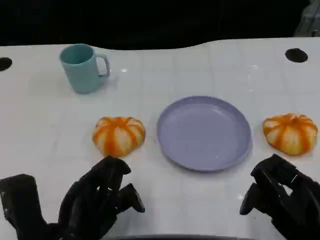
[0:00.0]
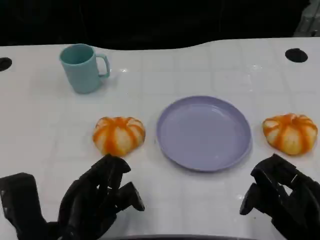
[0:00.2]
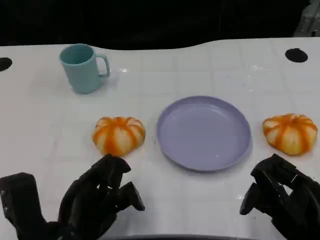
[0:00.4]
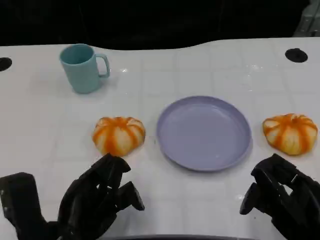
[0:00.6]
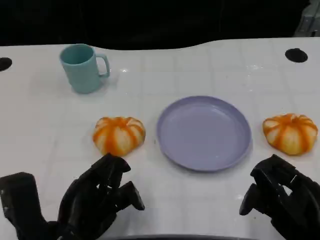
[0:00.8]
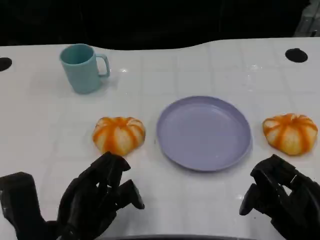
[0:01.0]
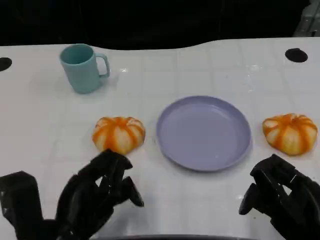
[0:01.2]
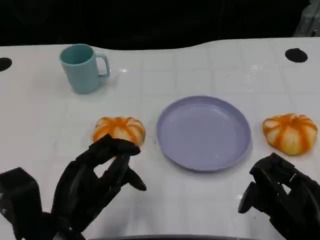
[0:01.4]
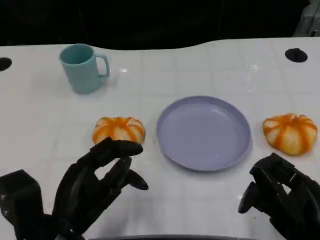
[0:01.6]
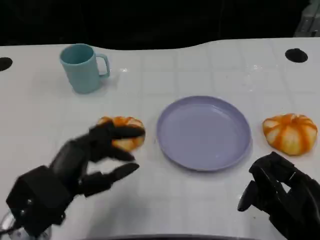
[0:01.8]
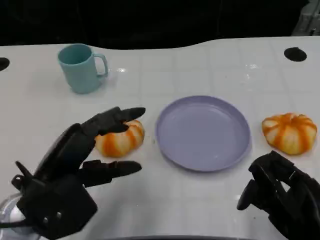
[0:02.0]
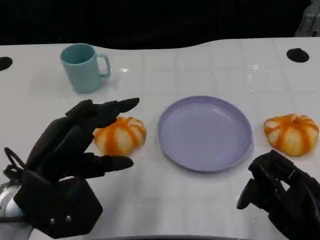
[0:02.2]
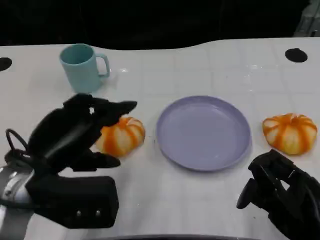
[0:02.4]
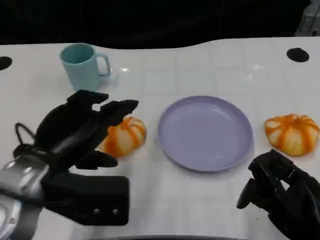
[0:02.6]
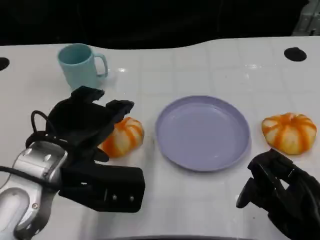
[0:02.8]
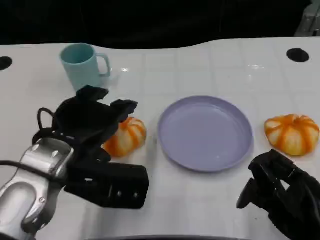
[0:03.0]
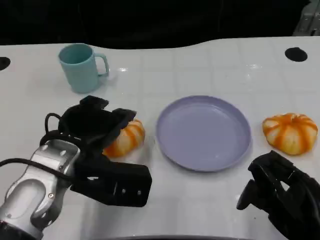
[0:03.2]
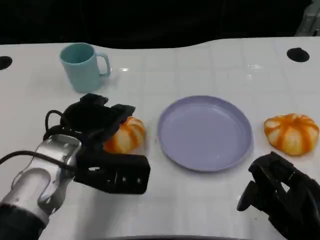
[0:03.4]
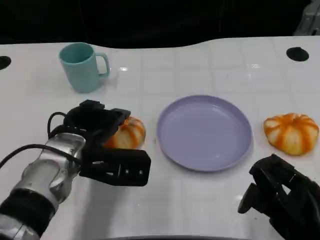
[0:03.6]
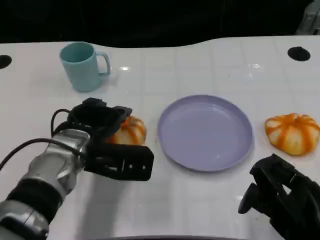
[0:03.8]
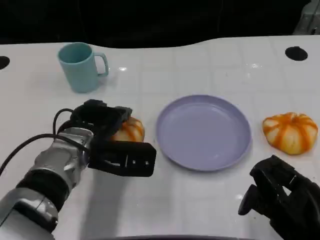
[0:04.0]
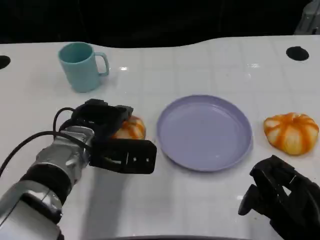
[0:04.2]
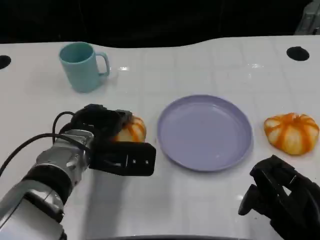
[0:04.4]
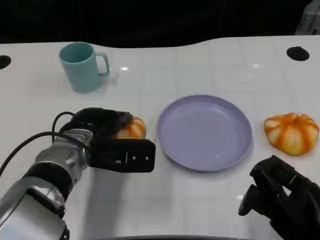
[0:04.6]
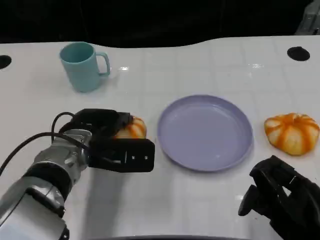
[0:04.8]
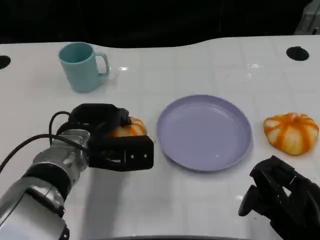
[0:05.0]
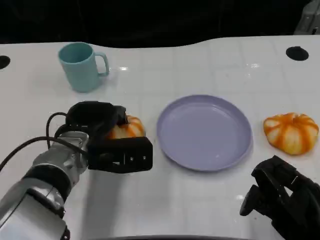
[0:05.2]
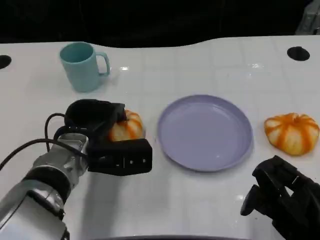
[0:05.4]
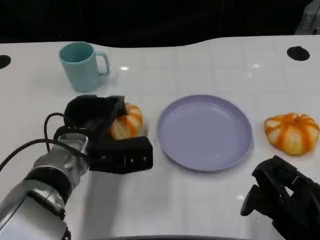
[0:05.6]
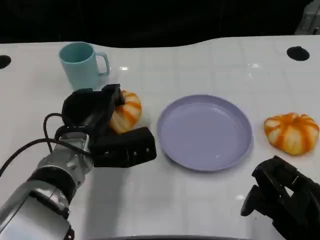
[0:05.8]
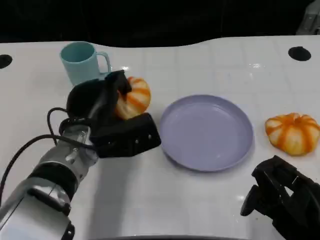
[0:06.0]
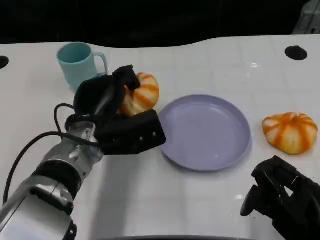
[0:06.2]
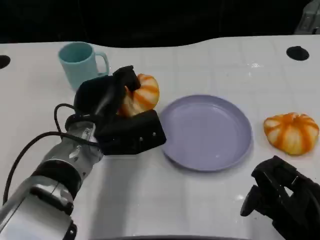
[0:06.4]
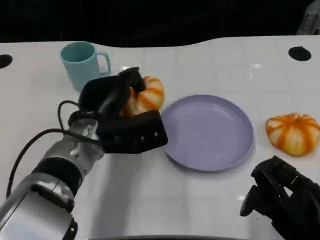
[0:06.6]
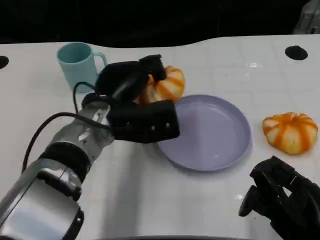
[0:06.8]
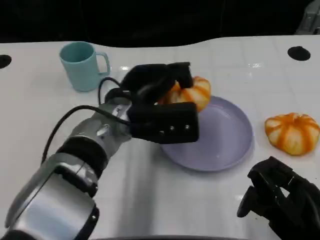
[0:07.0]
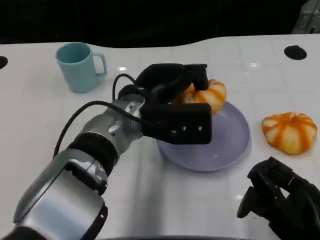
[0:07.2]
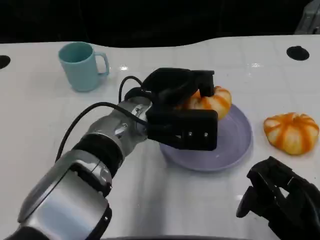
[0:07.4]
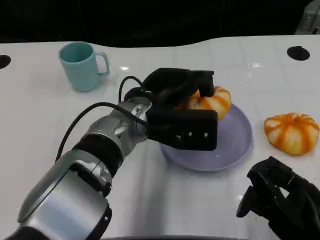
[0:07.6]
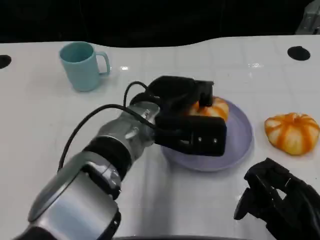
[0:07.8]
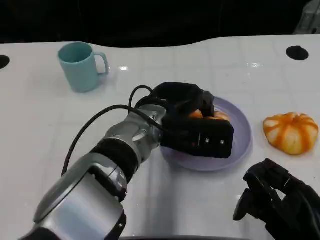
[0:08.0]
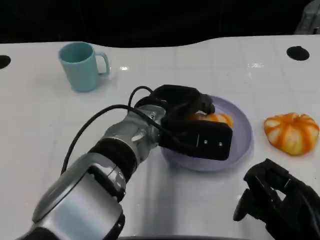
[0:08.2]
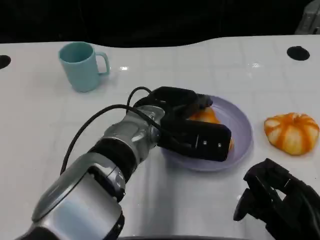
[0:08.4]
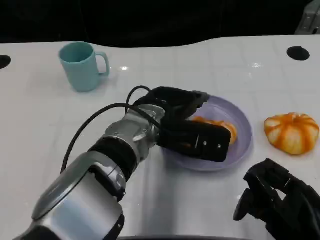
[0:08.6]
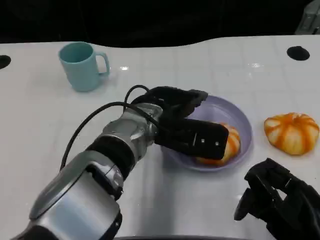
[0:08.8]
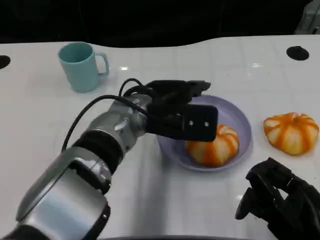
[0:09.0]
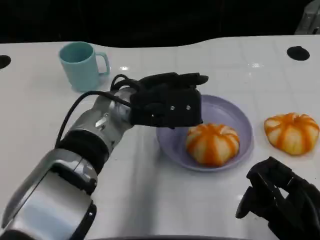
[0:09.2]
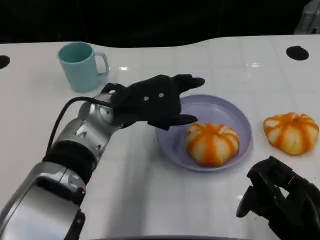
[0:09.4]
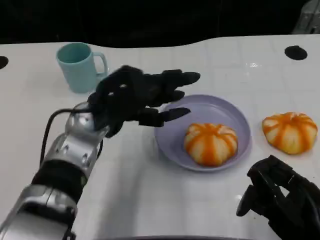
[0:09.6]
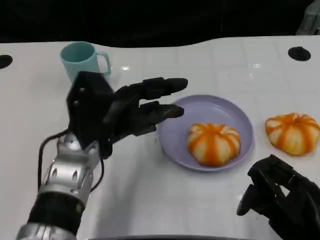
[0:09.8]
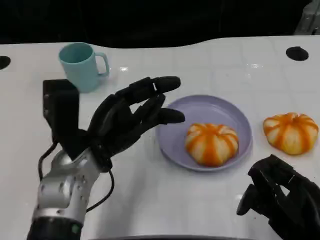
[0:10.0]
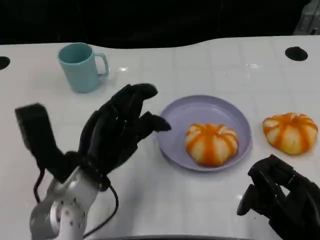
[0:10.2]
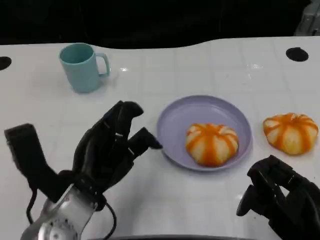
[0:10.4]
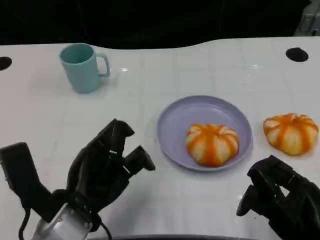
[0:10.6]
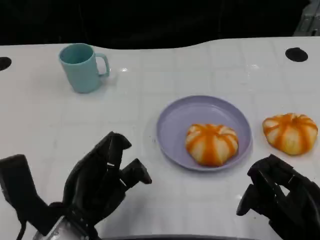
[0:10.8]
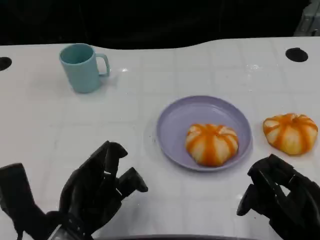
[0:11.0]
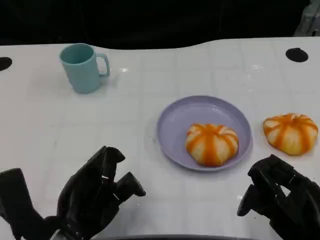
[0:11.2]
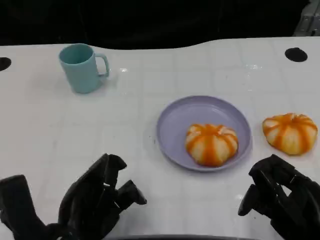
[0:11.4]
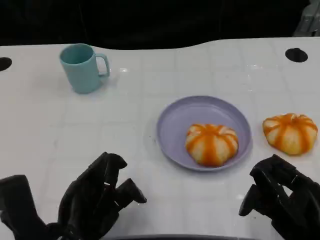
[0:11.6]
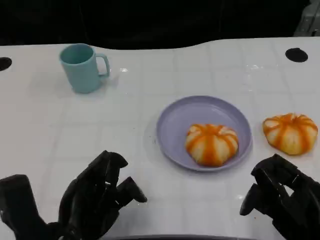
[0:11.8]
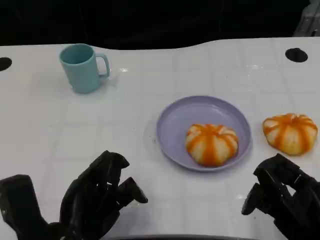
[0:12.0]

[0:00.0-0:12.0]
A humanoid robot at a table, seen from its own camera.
Task of the whole recording: Grasp the bread from the table and place it into the plate.
0.0 to 1.6 s: The hands move only a little.
1.6 to 3.0 s: The left hand is displaced forward and upward by roughly 10 cm.
3.0 to 4.4 s: The left hand moves downward and forward, some 10 cm.
6.0 to 7.6 s: The left hand moves to the right, about 10 cm.
9.0 to 10.4 s: The left hand heads backward and to the left, covering about 15 cm.
10.4 to 12.0 s: The left hand ends up approximately 5 cm from where it was.

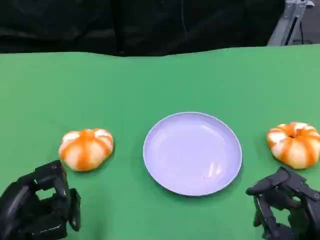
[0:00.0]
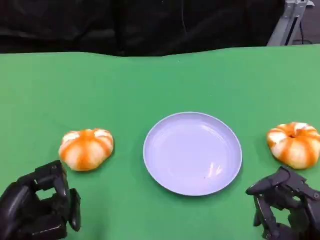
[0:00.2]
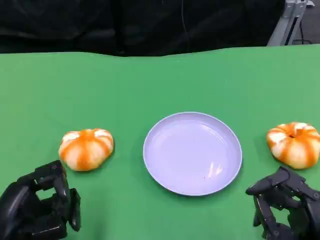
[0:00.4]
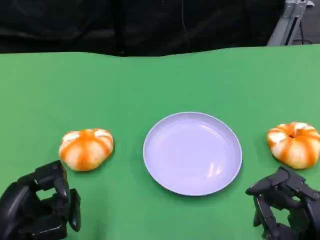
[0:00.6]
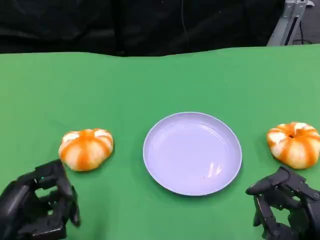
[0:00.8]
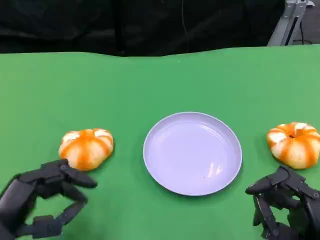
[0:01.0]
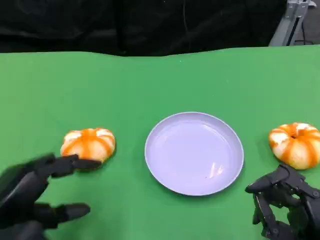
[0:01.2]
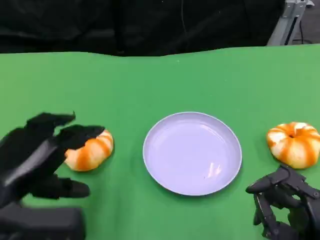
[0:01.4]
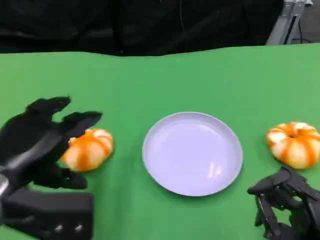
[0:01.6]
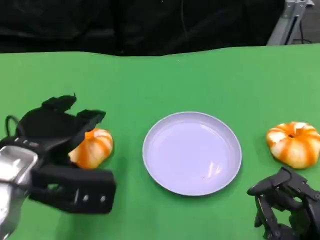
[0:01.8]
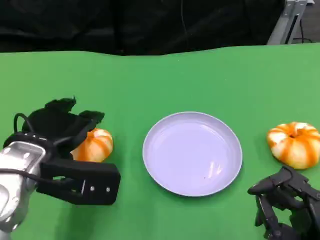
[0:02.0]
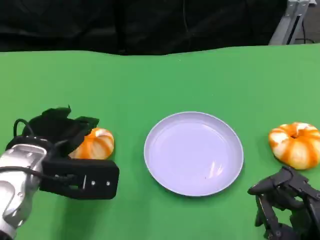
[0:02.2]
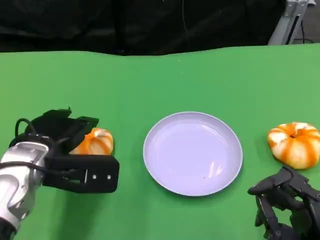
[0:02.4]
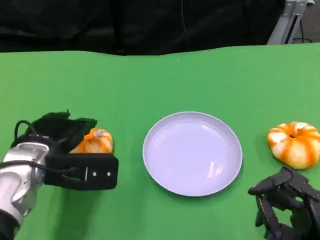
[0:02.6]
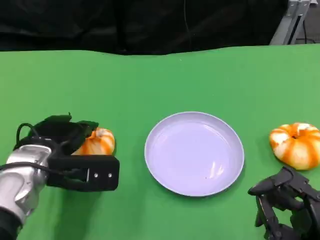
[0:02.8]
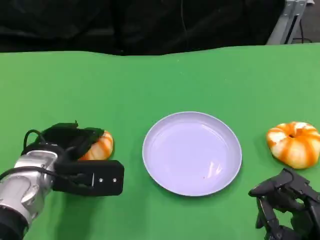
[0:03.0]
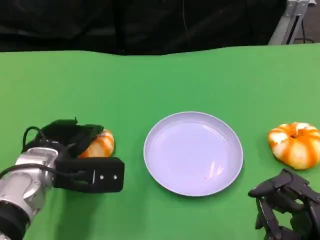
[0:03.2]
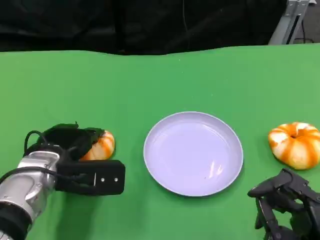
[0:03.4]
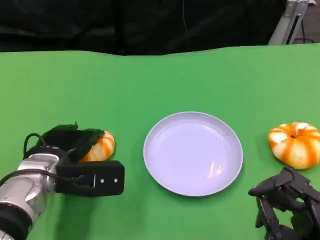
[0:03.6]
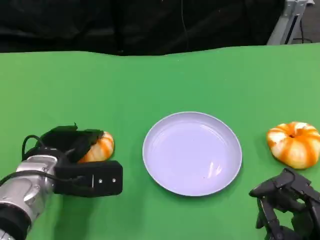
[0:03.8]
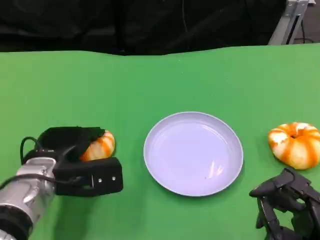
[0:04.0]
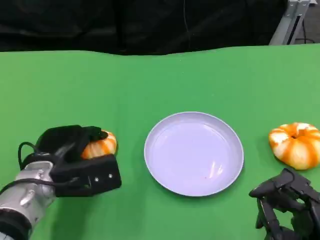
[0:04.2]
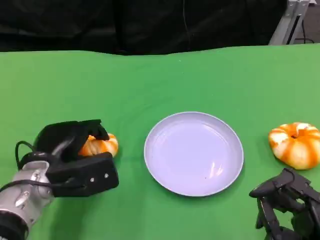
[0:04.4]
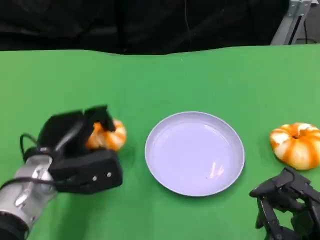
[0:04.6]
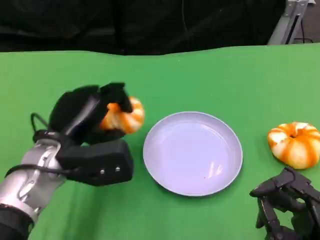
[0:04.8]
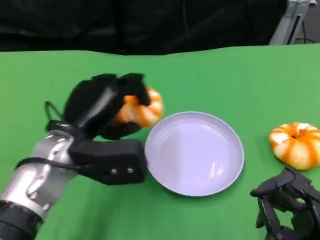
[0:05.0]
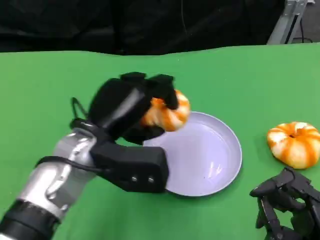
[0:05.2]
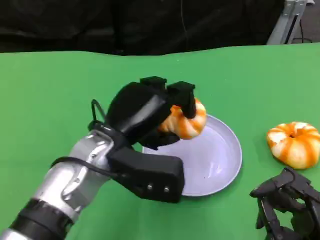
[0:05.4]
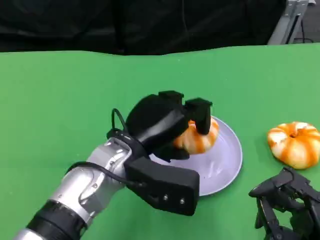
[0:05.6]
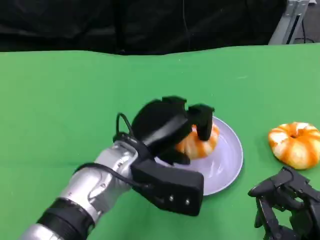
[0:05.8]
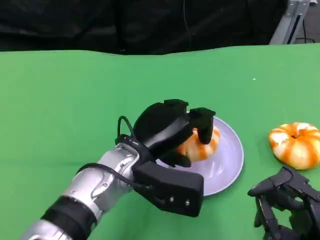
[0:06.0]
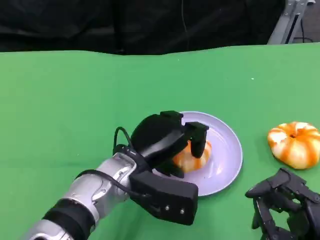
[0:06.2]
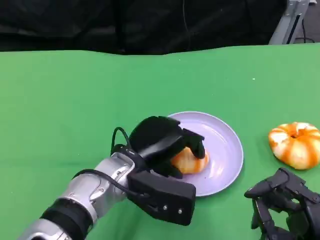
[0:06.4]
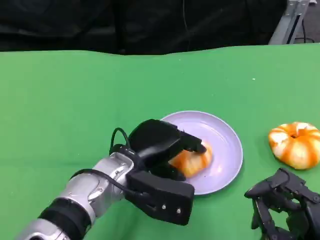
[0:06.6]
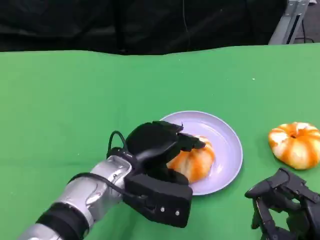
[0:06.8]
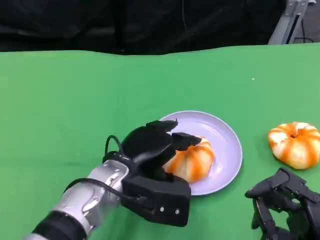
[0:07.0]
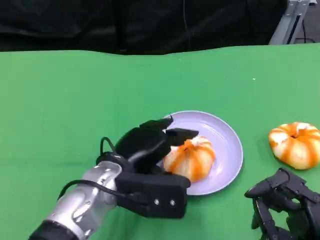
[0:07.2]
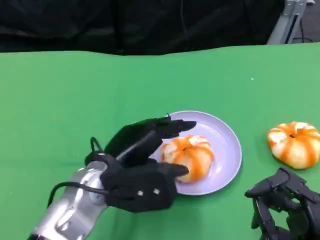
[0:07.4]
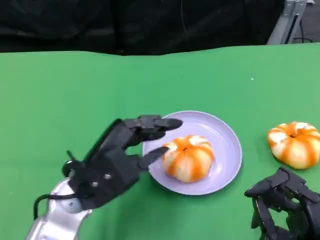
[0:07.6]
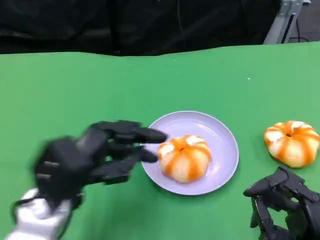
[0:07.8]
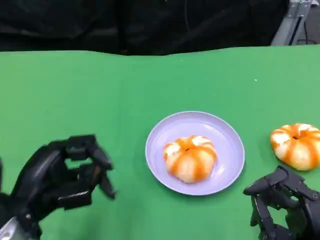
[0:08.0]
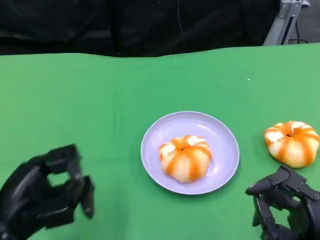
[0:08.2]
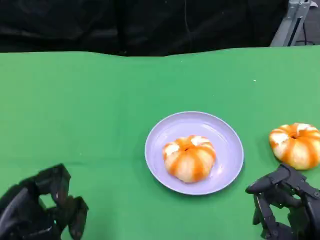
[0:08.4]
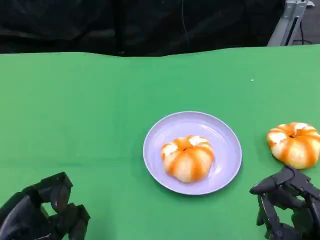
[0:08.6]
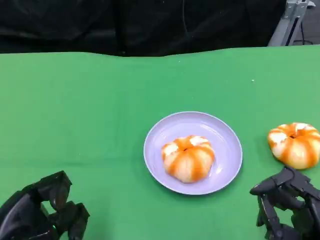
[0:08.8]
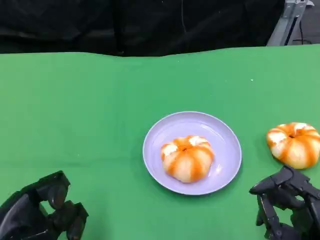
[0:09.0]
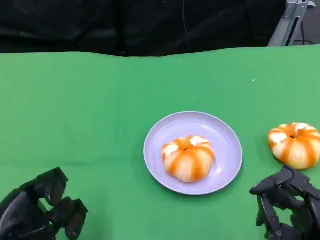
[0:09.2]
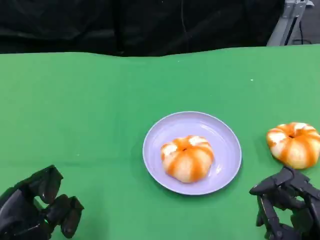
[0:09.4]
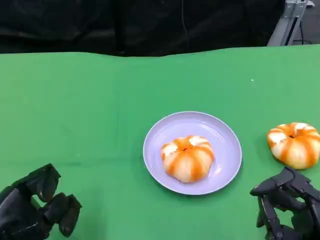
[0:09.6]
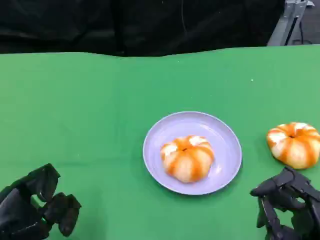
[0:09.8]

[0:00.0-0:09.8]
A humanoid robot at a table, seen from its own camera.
Task of the whole recording: Grasp the bread from the table and place it into the plate.
0.0 to 1.4 s: The left hand moves upward, approximately 10 cm.
1.4 to 2.8 s: The left hand goes about 10 cm forward and downward.
4.2 to 5.6 s: The left hand travels to the right and upward by approximately 15 cm.
7.0 to 8.4 s: The left hand goes approximately 20 cm to the left and backward.
8.4 to 9.8 s: The hands stay close to where they were, moving slightly.

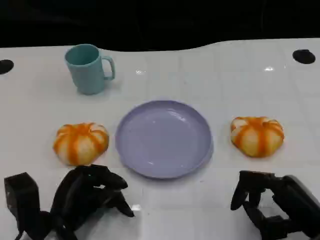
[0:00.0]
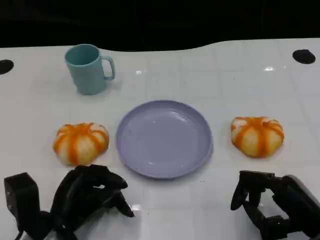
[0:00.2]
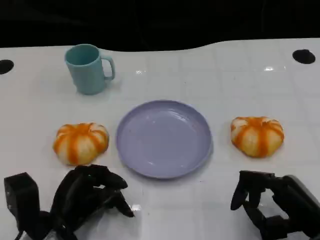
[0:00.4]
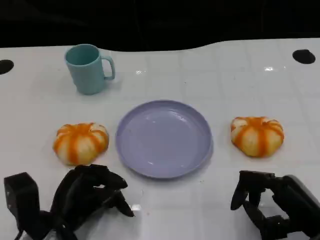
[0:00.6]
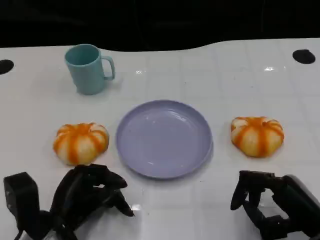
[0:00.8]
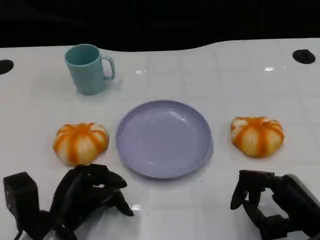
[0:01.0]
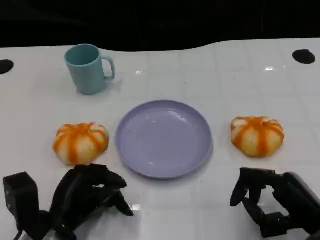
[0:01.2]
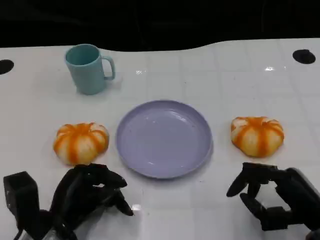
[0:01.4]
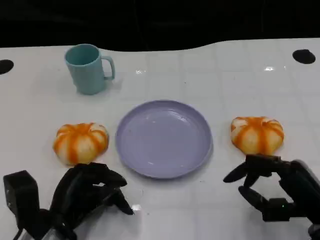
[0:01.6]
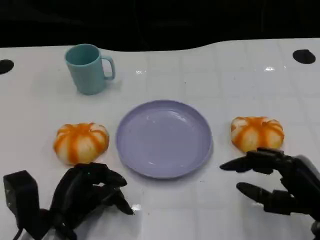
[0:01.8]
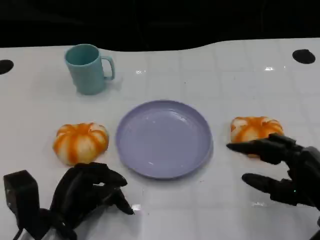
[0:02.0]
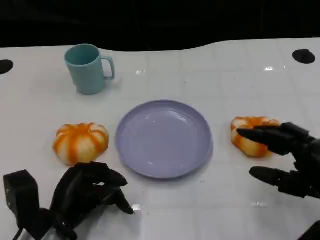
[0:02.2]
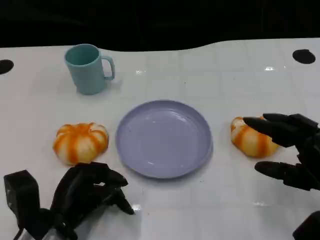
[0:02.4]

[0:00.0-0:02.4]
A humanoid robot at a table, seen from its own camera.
Task of the whole recording: Grasp the bread from the table and place it into the plate.
0.0 to 1.2 s: Neither hand changes place.
1.2 to 2.4 s: The right hand heads upward, covering roughly 5 cm.
